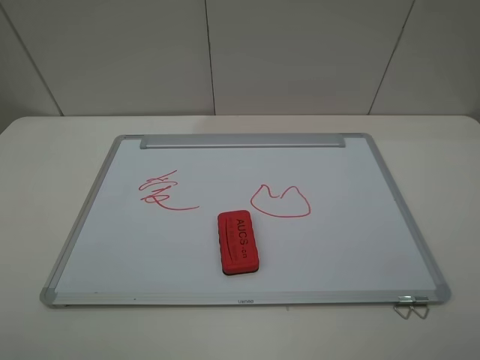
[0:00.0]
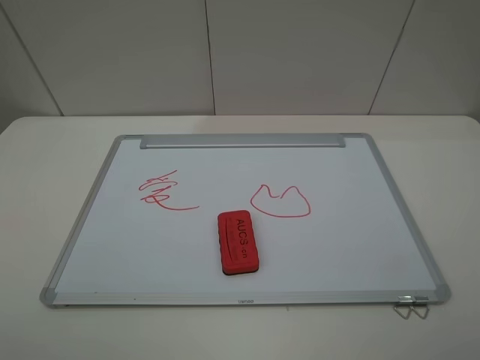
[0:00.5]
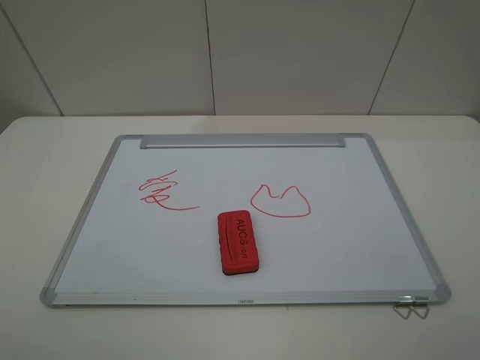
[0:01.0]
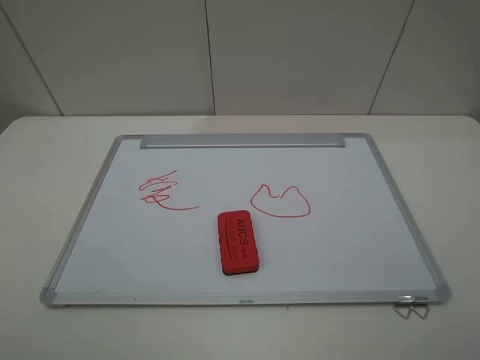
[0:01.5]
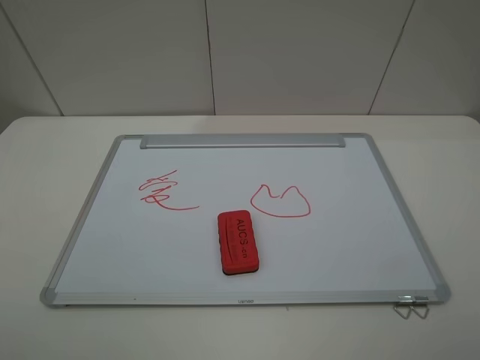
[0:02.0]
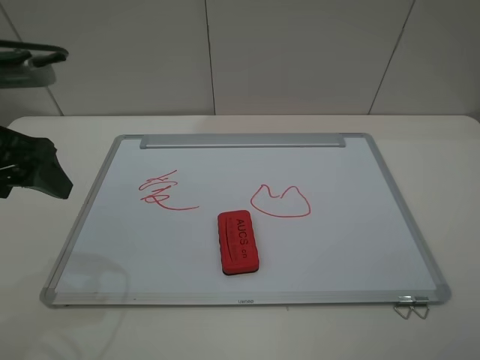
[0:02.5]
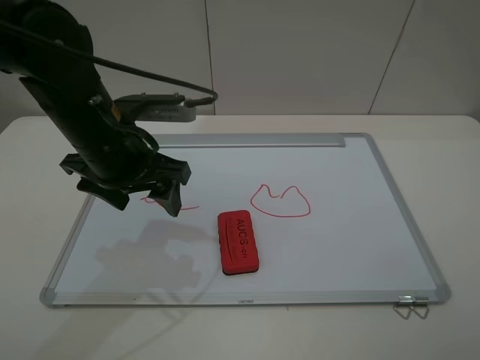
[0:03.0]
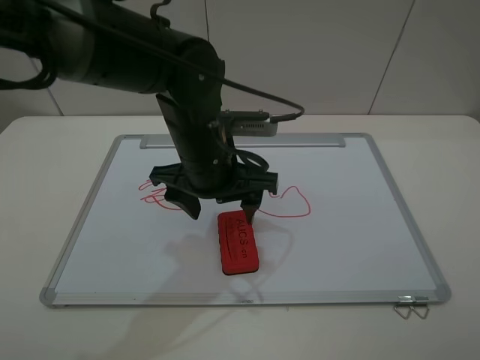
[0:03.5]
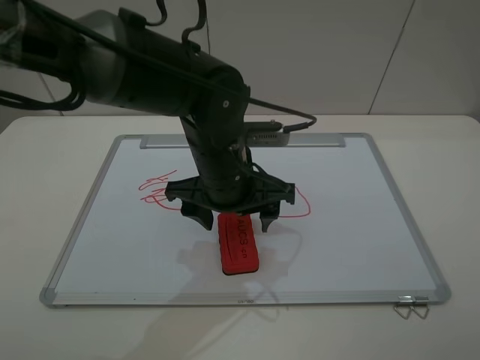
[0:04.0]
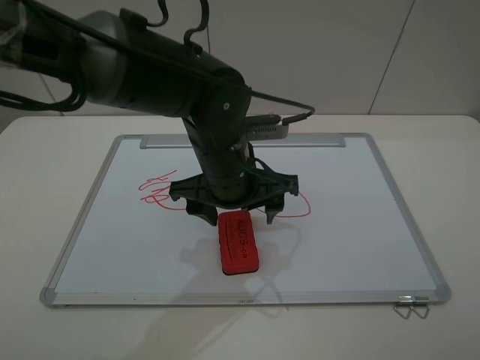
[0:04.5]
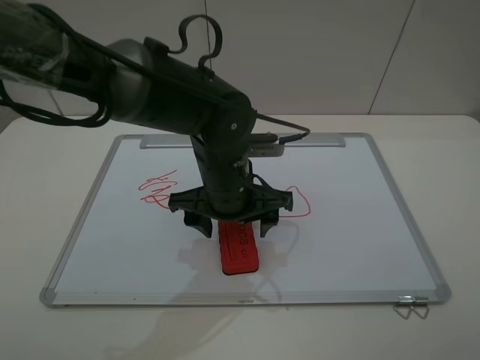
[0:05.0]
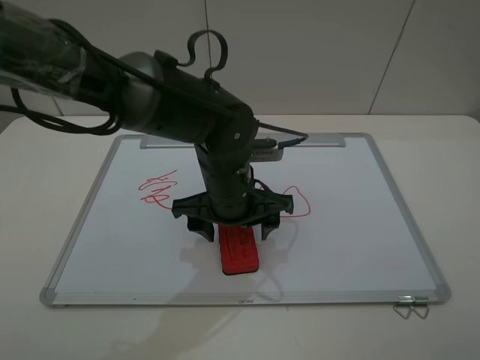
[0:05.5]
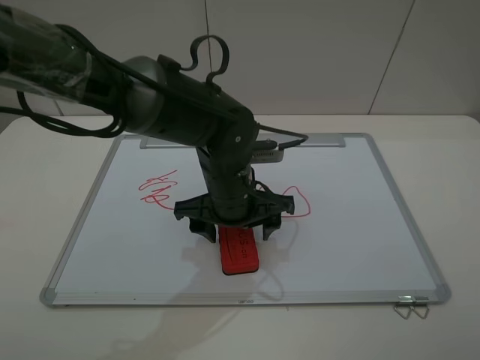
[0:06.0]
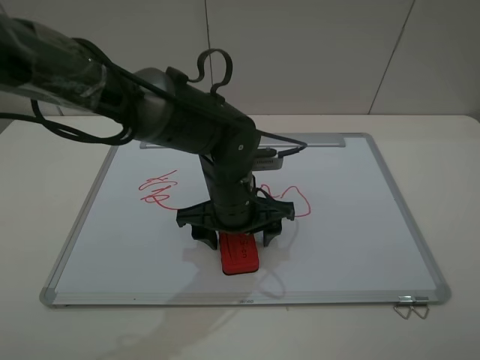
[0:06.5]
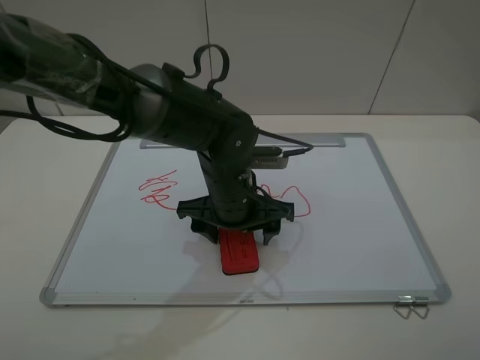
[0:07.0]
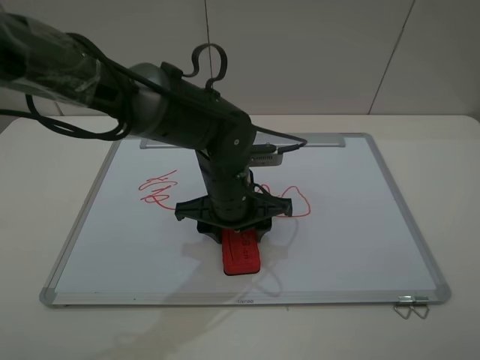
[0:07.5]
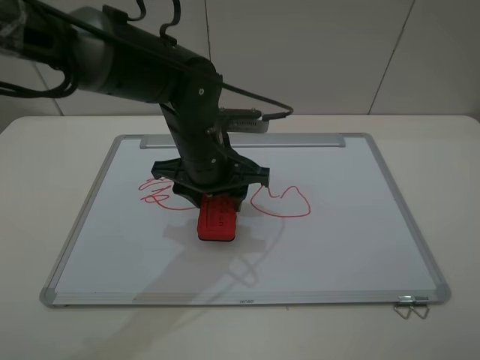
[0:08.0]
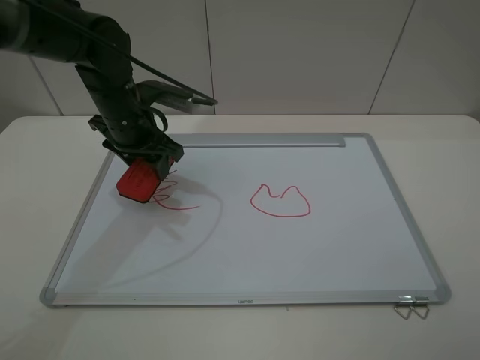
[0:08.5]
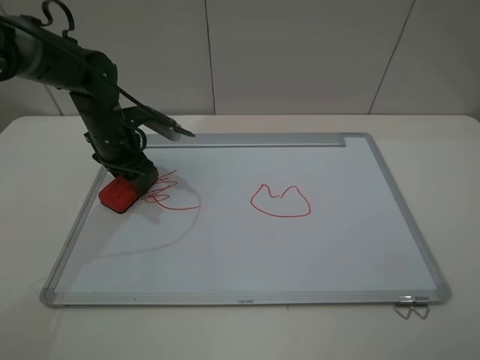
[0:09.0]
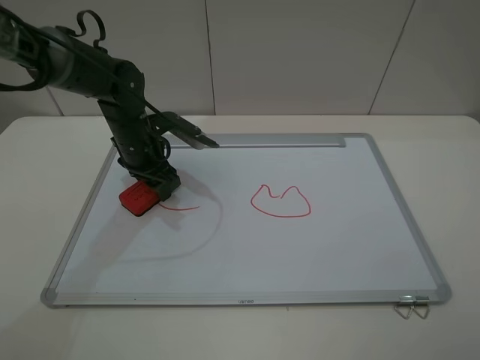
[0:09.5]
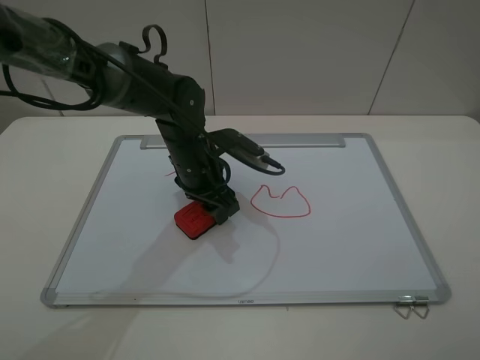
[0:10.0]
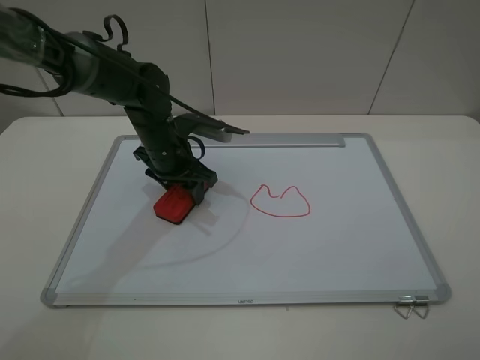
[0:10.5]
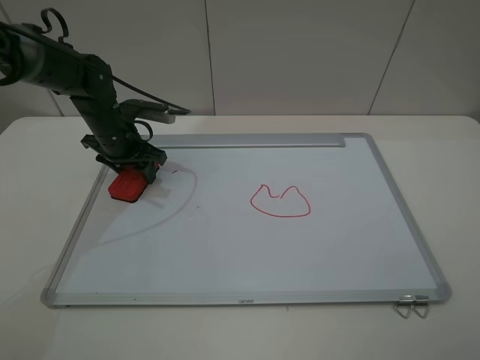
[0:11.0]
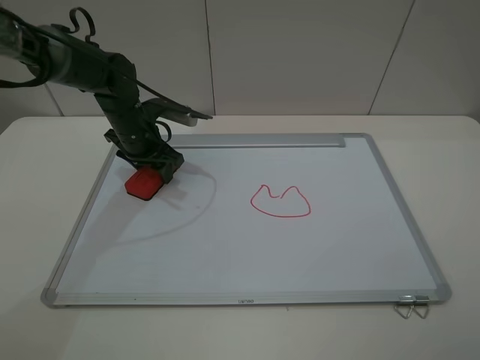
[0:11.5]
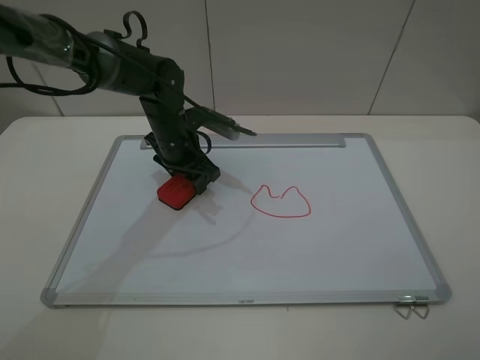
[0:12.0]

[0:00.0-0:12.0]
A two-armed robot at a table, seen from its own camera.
Step, 0:00.0 to 0:07.0: Grasp the eraser with the left gripper.
0:02.0 to 0:04.0: The left gripper is displaced to the right, forward and downward by approximately 40 cm.
0:04.0 to 0:06.0: The grippers stay close to where they were, moving slightly.
0:06.0 to 0:08.0: The left gripper shifts by approximately 5 cm, and closes up.
0:08.0 to 0:10.0: The left gripper goes about 5 cm downward, and moves roughly 15 cm to the left and comes back.
0:10.0 to 0:12.0: The left gripper is displaced forward by roughly 5 cm, and moves some 15 cm to the left and comes back.

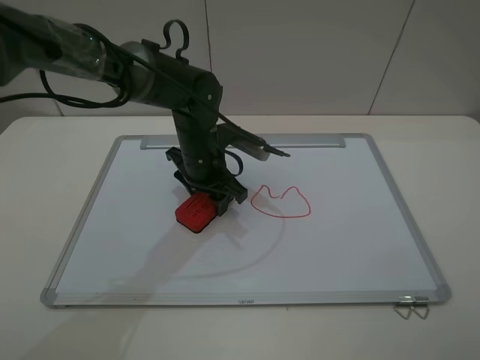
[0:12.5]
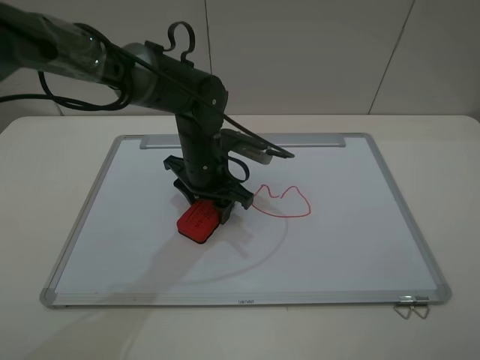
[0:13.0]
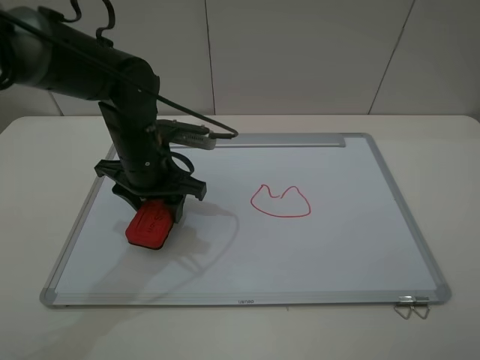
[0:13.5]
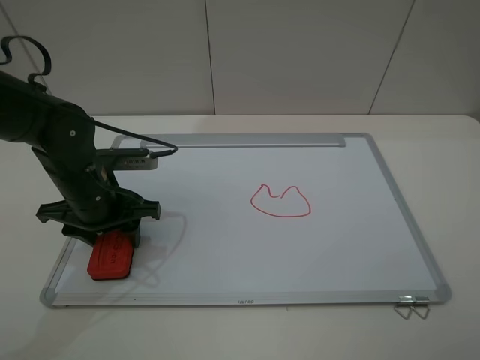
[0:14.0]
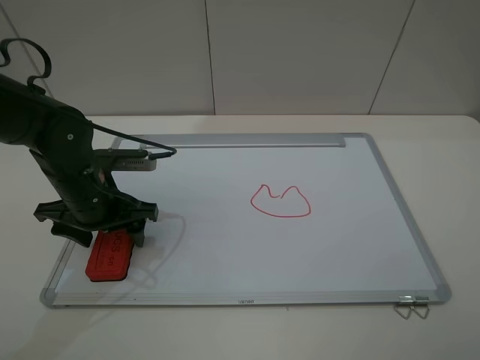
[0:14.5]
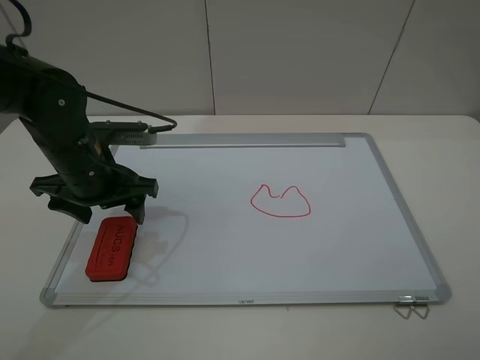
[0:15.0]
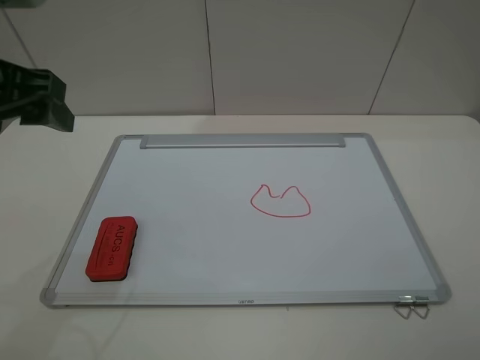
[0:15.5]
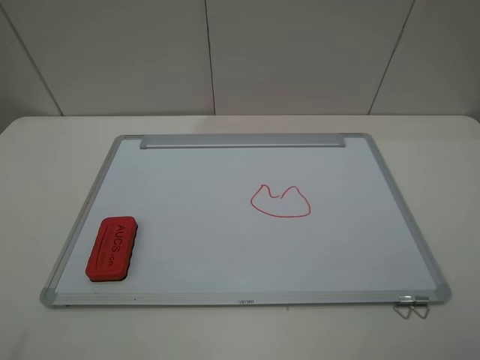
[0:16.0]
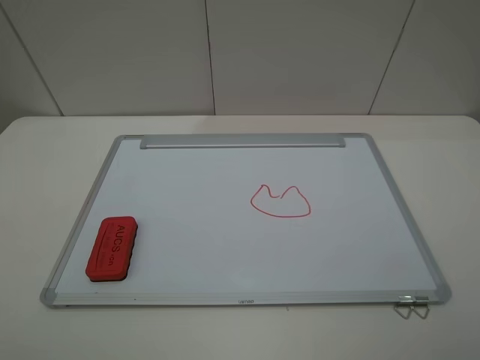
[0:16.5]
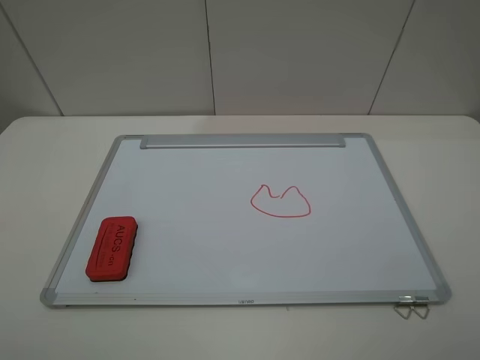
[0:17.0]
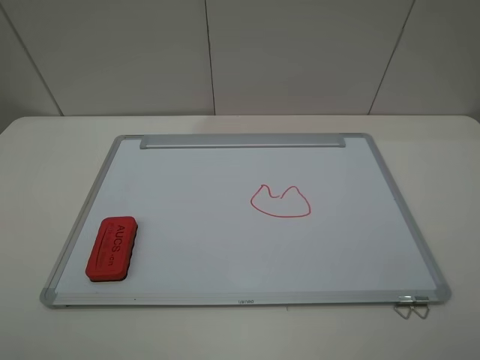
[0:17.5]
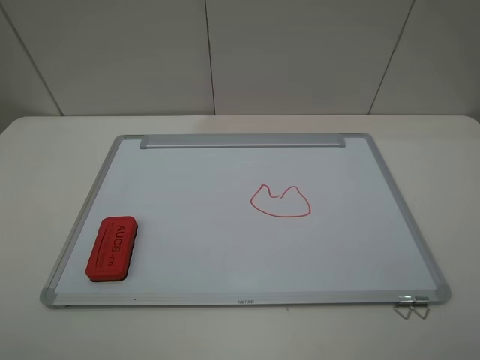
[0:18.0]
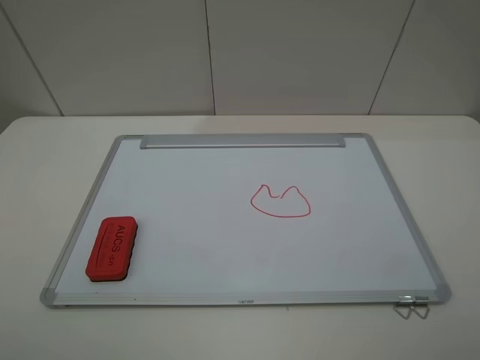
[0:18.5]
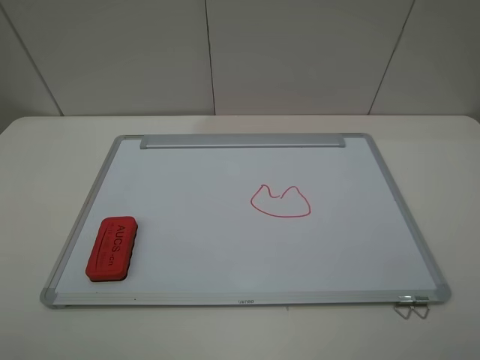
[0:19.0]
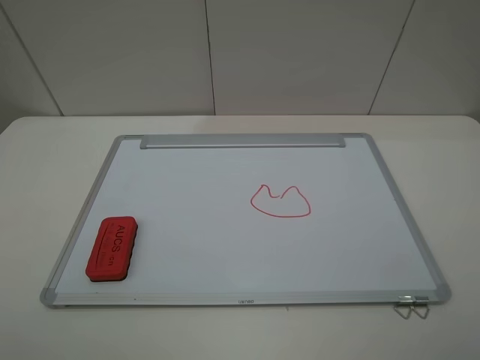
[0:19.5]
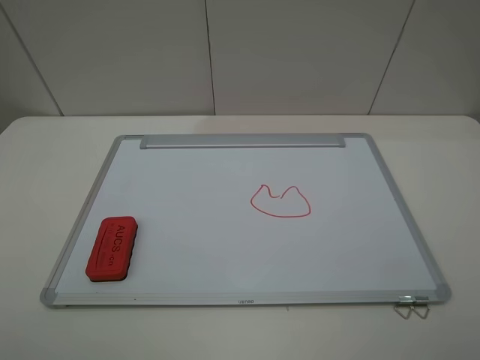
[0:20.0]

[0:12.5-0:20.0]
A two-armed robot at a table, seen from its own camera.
Step, 0:13.5 to 0:14.5: Place the eraser with the left gripper.
0:12.5 to 0:14.5: The left gripper goes some 15 cm to the left and backward, and opens.
0:14.5 to 0:16.5: The left gripper moves upward, backward and to the left, some 35 cm.

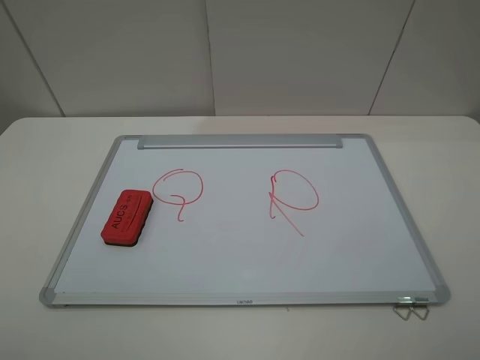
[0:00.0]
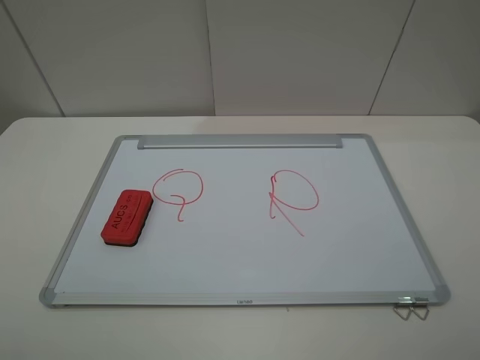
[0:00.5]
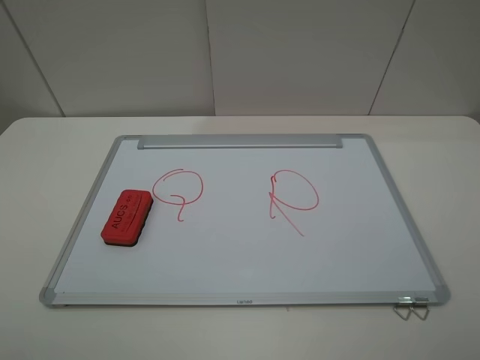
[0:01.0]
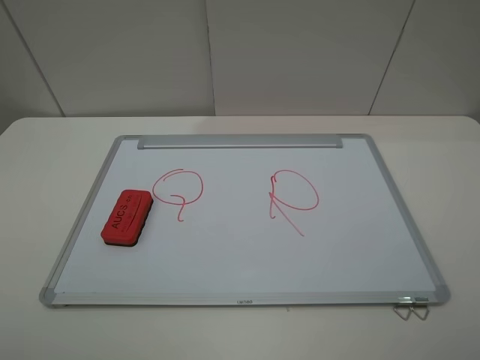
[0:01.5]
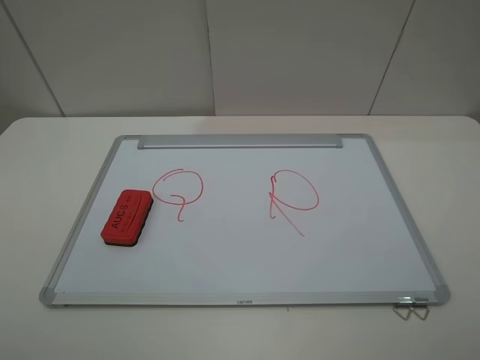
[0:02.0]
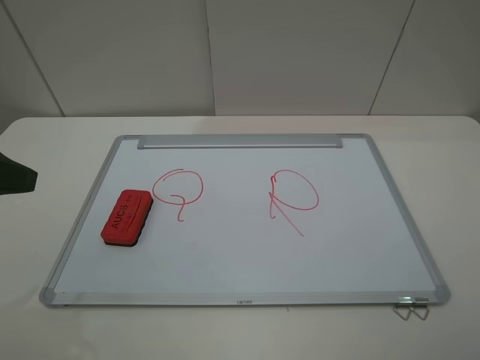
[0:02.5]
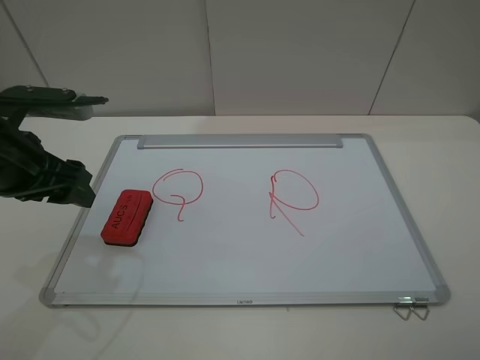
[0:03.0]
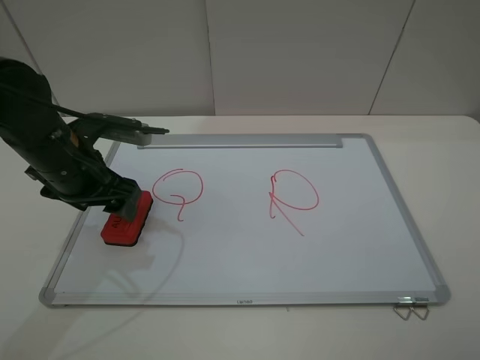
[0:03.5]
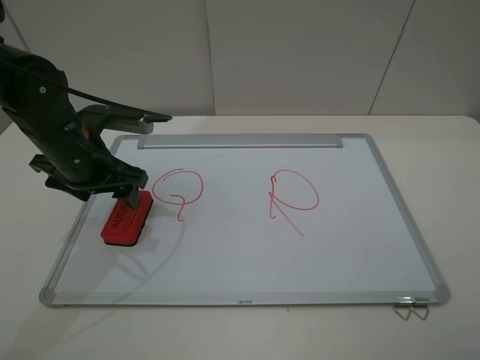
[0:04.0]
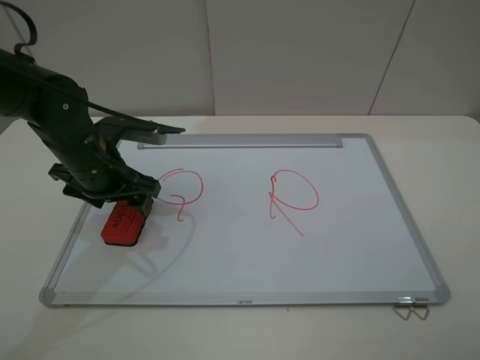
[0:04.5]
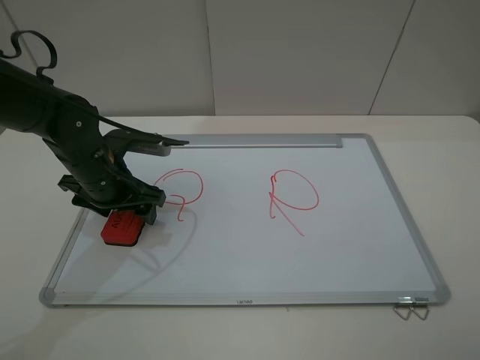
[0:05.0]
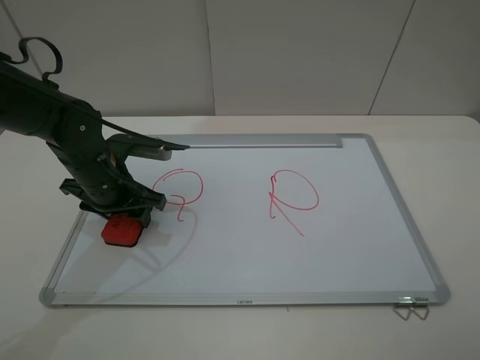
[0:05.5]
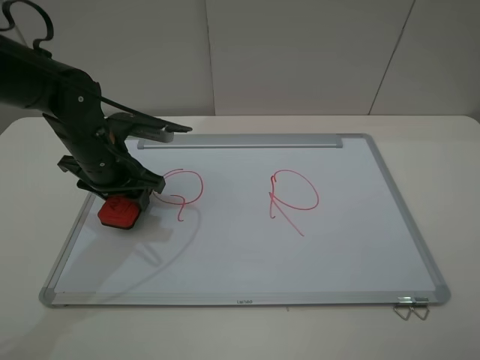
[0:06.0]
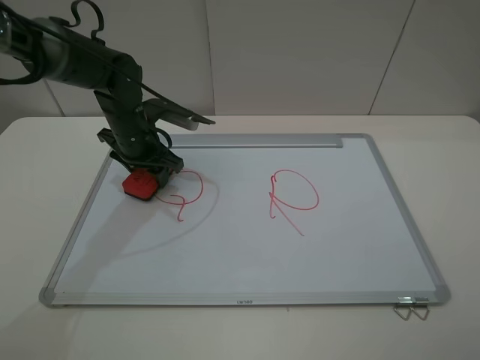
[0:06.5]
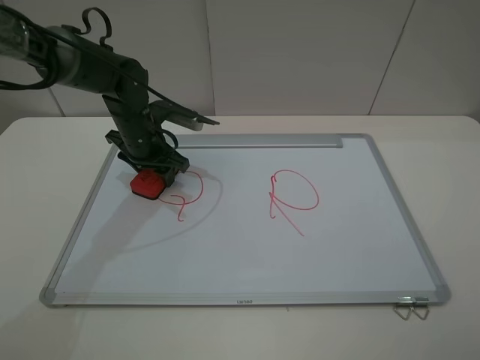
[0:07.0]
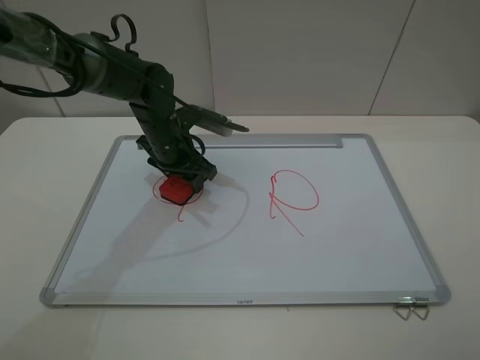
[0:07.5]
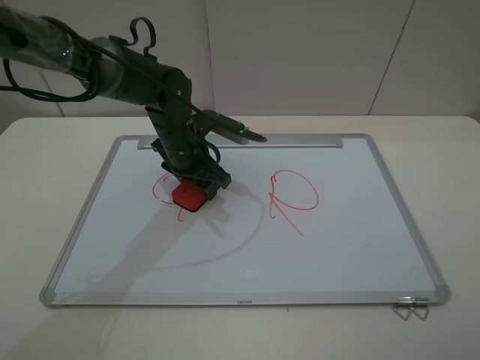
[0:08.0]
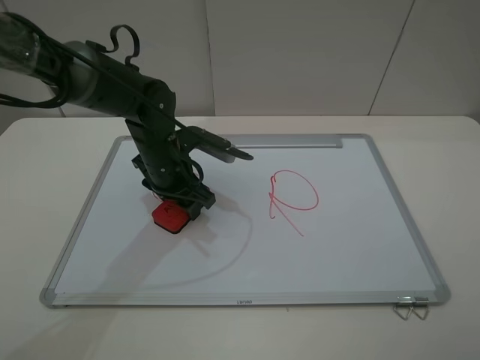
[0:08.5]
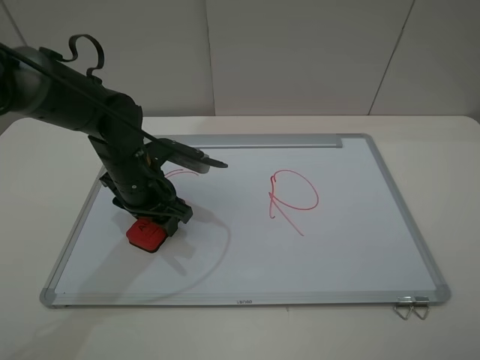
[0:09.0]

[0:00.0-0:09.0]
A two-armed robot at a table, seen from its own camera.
Step, 0:00.0 to 0:05.0: Grasp the eraser with the left gripper.
0:02.0 to 0:04.5: The left gripper heads forward, downward and to the right, covering roughly 30 cm.
0:04.5 to 0:07.0: The left gripper goes about 10 cm forward, and closes.
0:07.0 to 0:09.0: The left gripper shifts roughly 10 cm backward.
